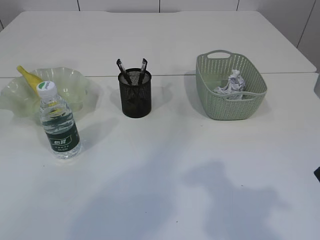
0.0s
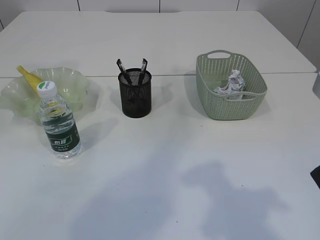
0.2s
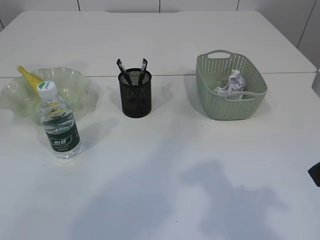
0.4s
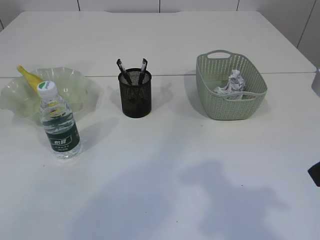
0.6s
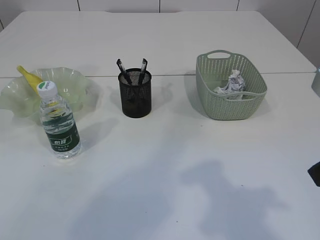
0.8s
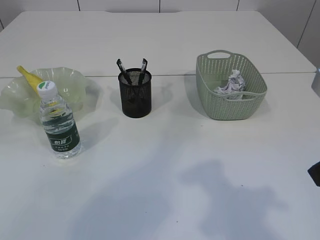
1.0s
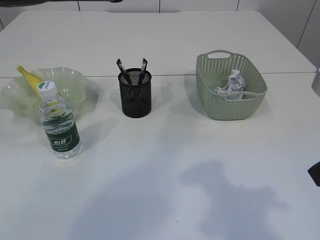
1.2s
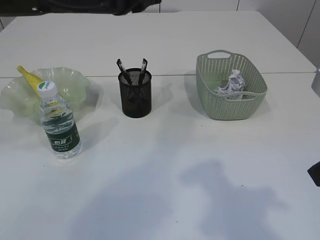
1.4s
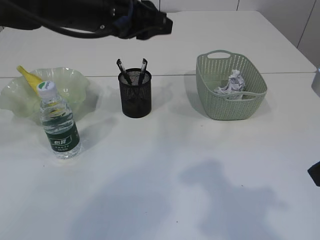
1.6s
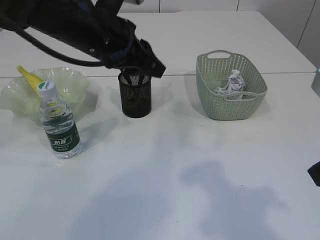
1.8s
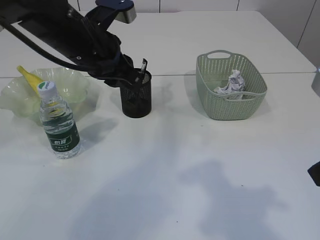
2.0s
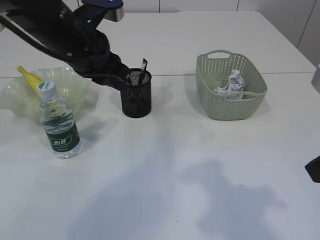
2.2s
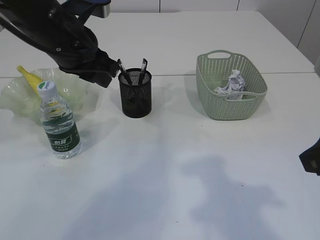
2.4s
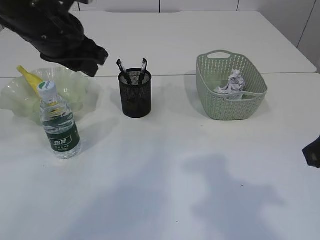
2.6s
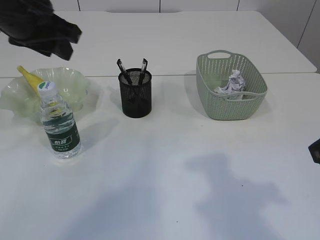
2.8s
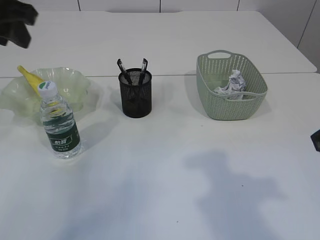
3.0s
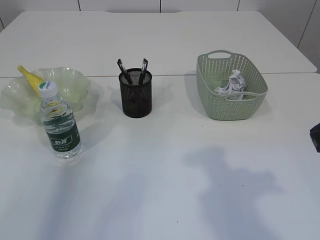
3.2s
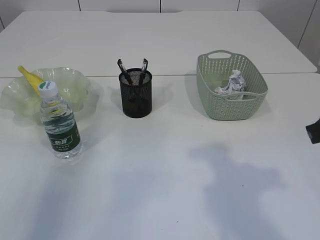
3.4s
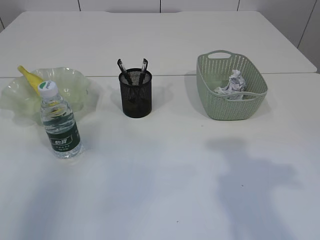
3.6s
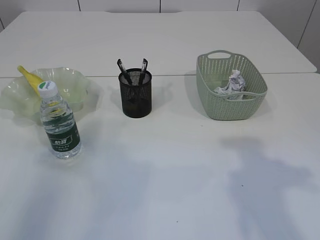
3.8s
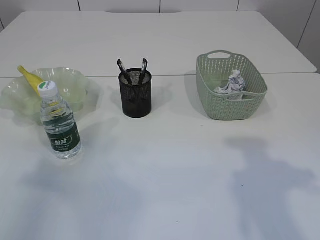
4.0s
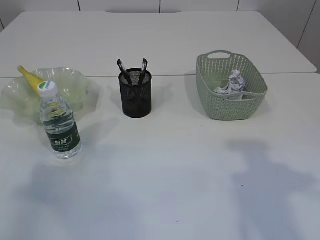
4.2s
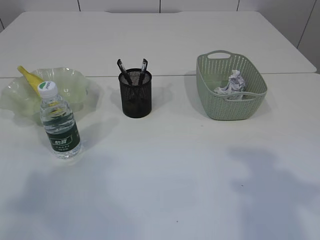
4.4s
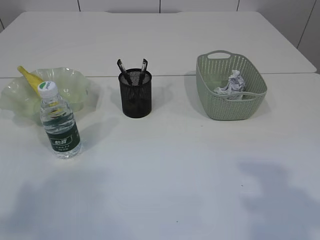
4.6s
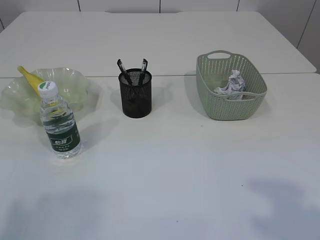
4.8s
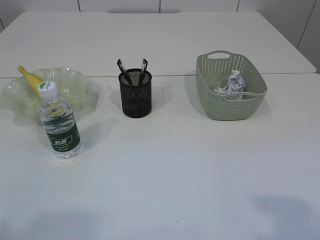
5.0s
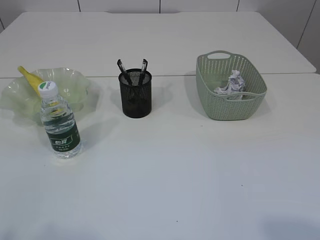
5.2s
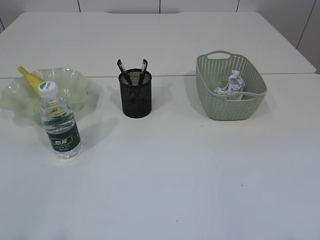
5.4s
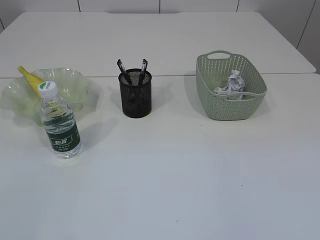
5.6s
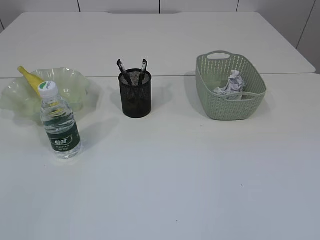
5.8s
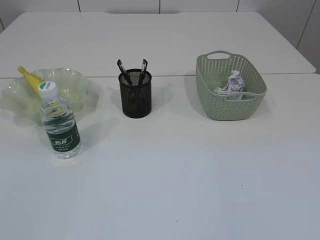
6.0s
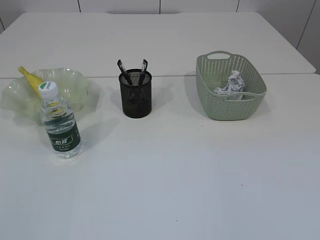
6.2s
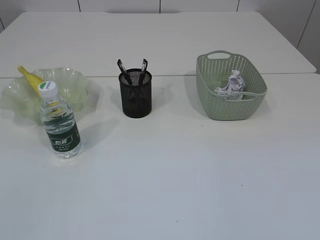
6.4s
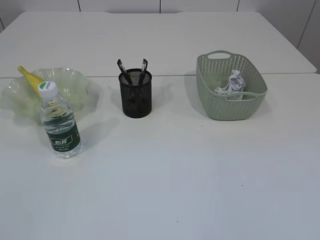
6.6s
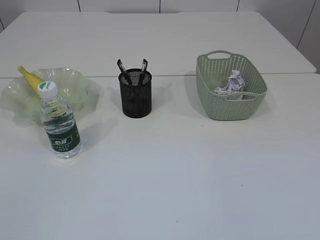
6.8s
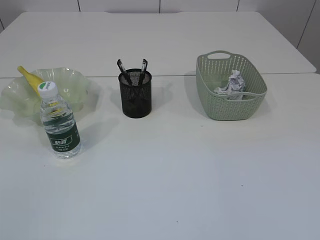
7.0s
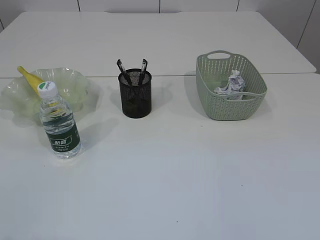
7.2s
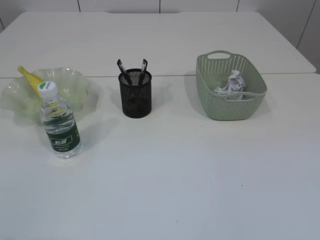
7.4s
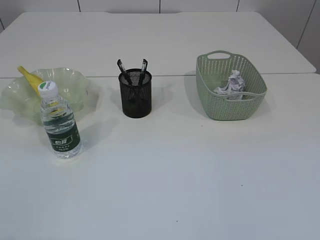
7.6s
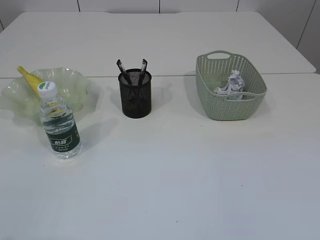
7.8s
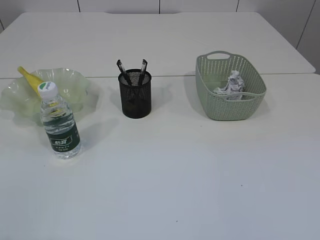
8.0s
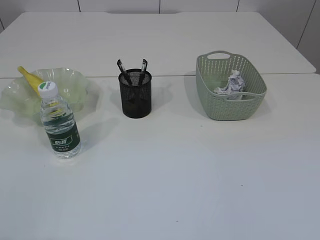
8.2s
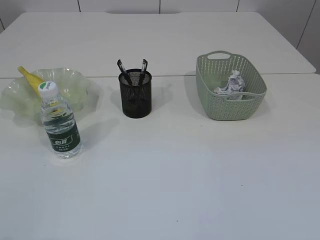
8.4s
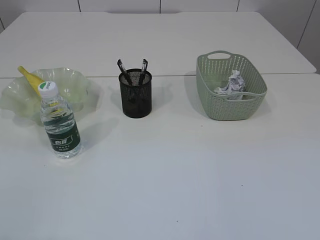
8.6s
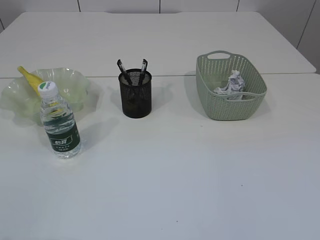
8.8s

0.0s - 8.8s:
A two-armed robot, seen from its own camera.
0.0s - 1.4s: The left gripper heads downward, covering about 5 cm.
1.4s - 3.0s: The left gripper goes about 15 cm to the left and backward.
3.0s - 4.4s: The left gripper shifts some 25 cm backward and to the left. The right gripper goes some 5 cm to the right.
4.4s - 5.8s: The left gripper travels backward by approximately 15 cm.

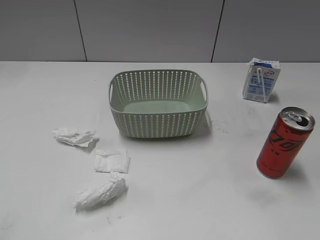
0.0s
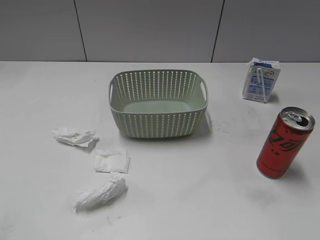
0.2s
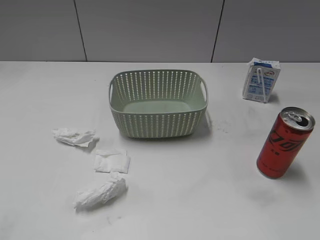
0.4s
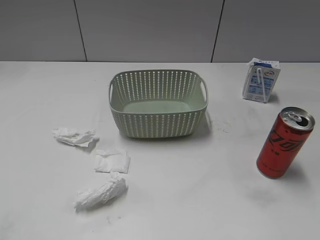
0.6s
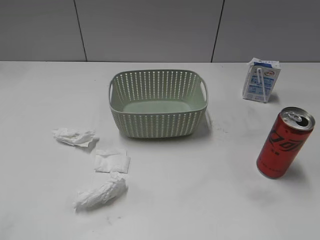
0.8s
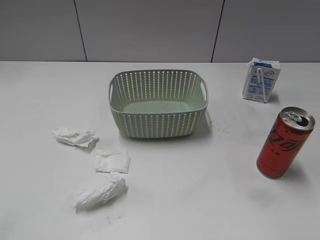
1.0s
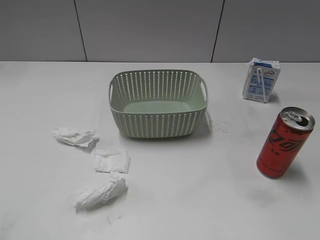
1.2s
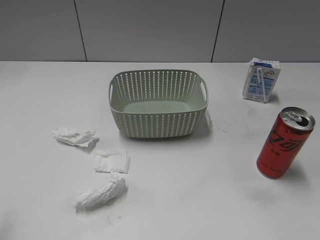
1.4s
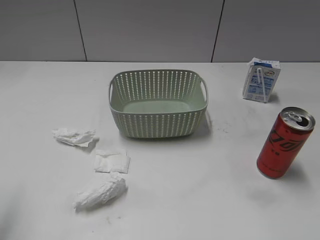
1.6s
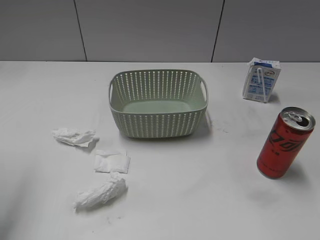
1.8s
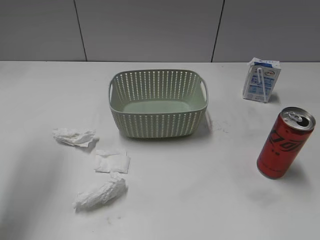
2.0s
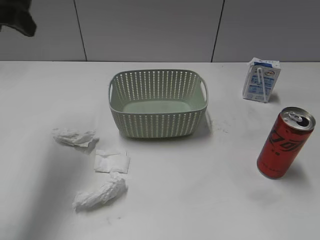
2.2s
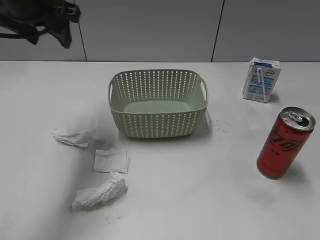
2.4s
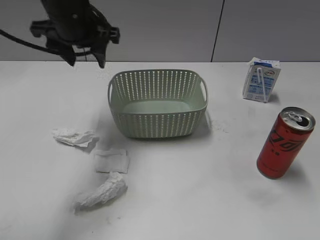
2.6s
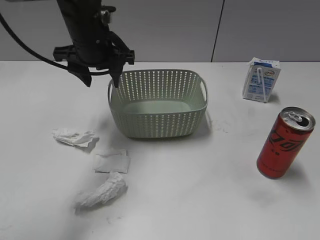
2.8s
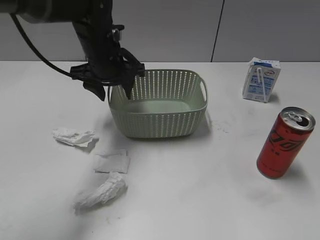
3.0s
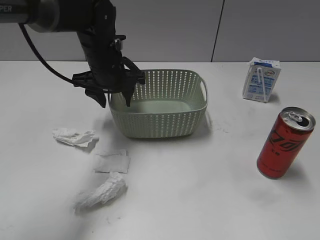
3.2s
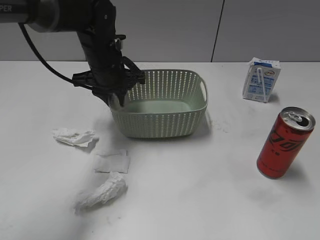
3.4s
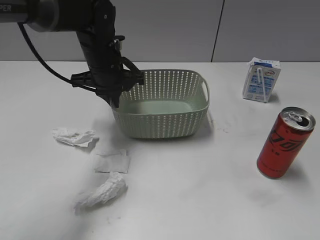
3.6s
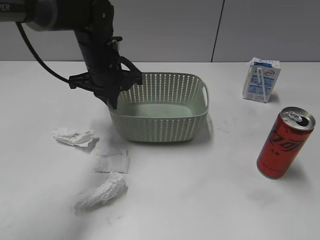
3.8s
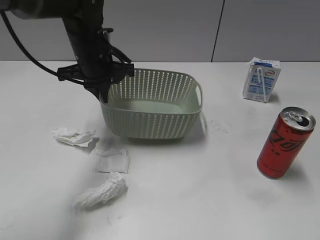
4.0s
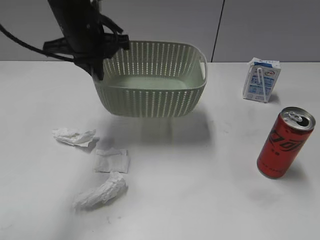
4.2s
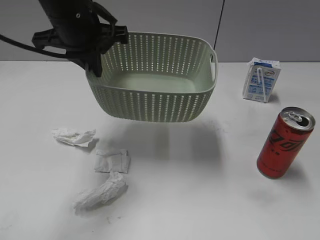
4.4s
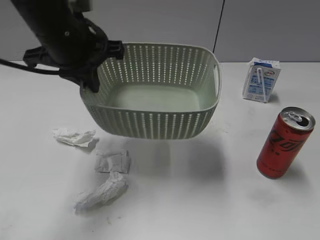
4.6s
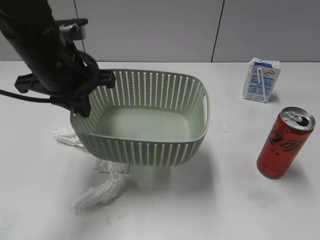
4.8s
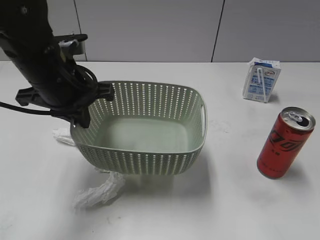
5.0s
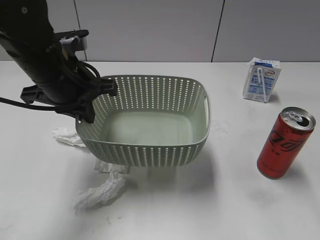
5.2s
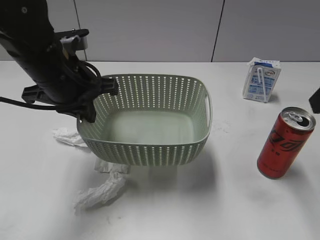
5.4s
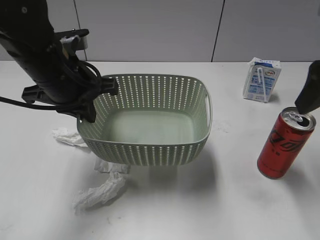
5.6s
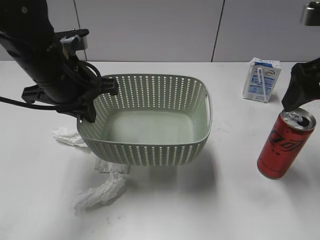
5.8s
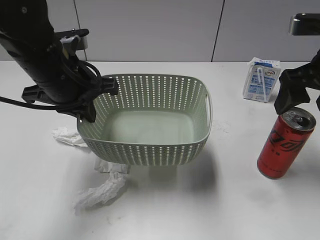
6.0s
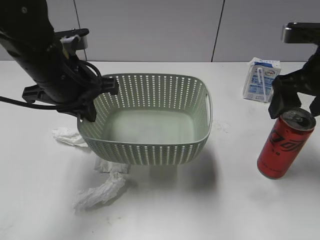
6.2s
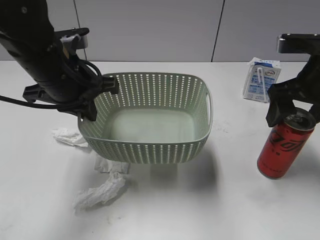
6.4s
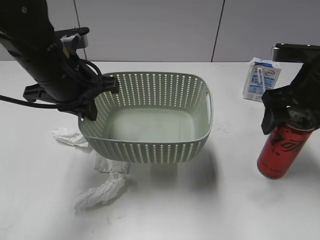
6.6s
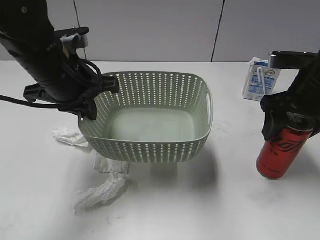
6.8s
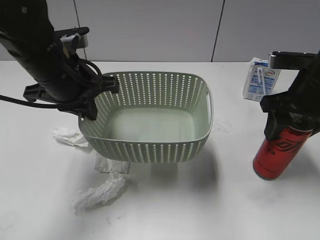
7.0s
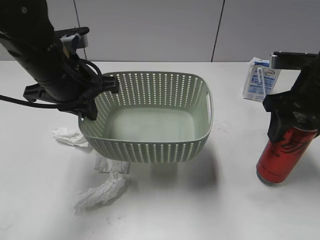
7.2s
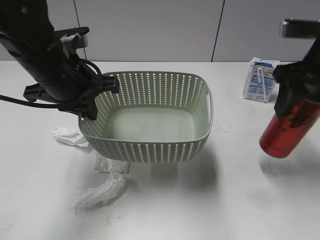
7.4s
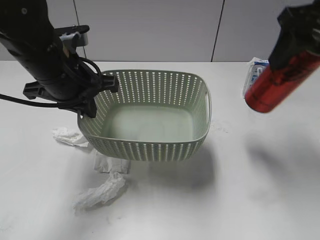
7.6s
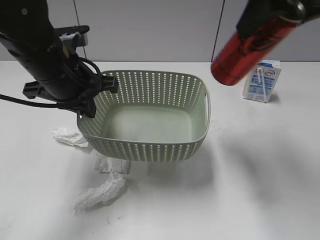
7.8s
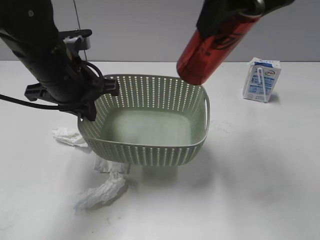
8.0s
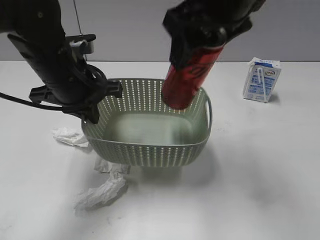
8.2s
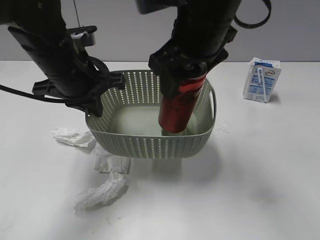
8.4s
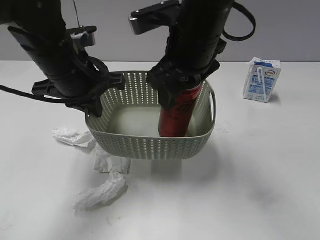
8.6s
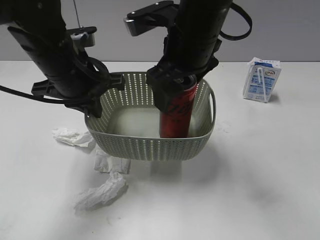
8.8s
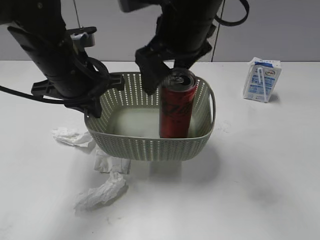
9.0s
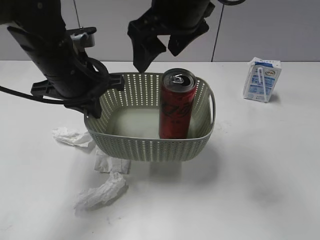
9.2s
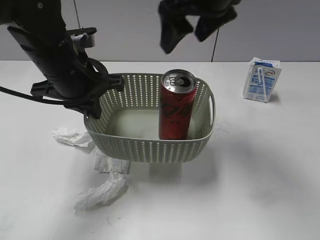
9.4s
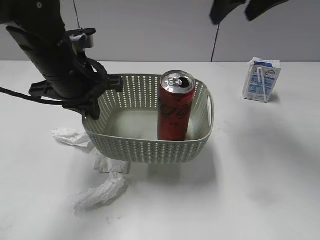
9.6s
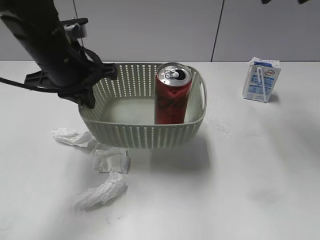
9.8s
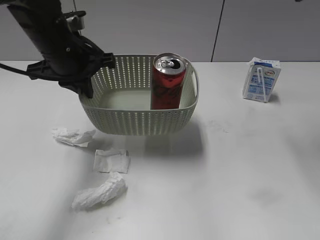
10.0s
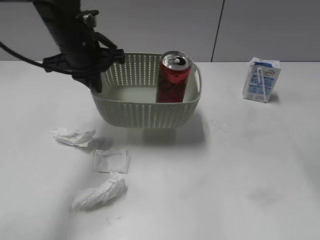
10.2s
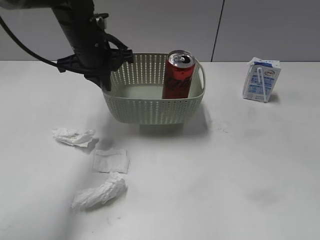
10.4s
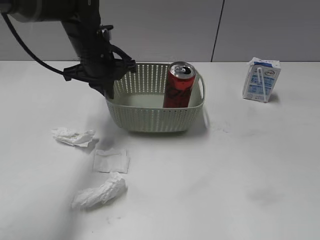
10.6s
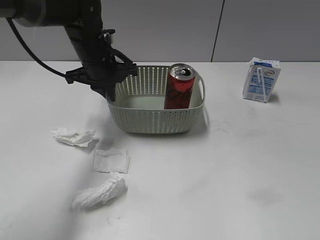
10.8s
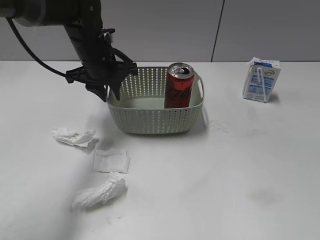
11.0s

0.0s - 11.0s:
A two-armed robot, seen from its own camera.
Step, 2.2s - 3.6s: Grasp the basket with left gripper.
Step, 3.8s - 5.2s: Lift the basket with left gripper.
Step, 5.4s - 7.0s: Grasp the cola can with right gripper.
Step, 7.2s - 8.8s: Place the cola can in the basket with right gripper.
Step, 9.0s - 11.0s: Place the basket on the table with left gripper.
1.6s - 3.2s: The left gripper moves forward, to the right and downward, roughly 40 cm.
3.2s - 4.8s: The left gripper goes some 15 cm backward and upward, and closes its fingers; the right gripper travels upward by about 5 cm.
4.8s - 6.2s: The right gripper is displaced forward by some 25 cm, and opens.
6.2s - 7.8s: The right gripper is displaced upward and to the left by about 15 cm, and closes up.
7.8s - 9.4s: The right gripper moves to the left and forward, approximately 10 cm, and opens up.
9.4s - 11.0s: The right gripper travels backward and to the right by some 40 cm, and closes; the left gripper travels forward by roughly 10 cm, and opens.

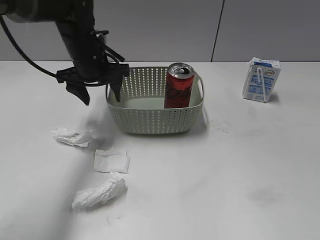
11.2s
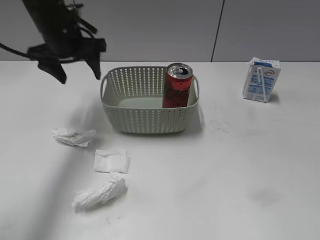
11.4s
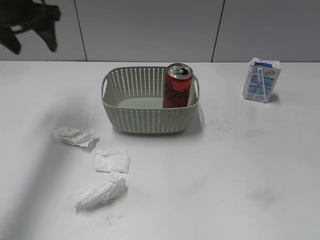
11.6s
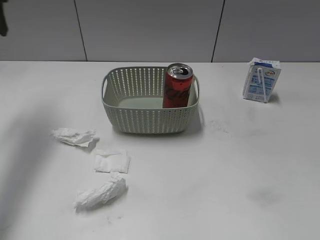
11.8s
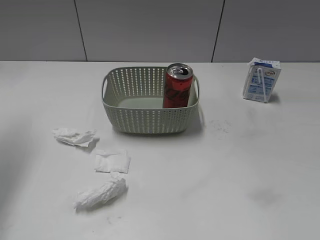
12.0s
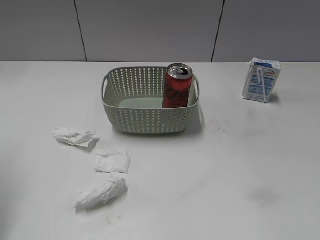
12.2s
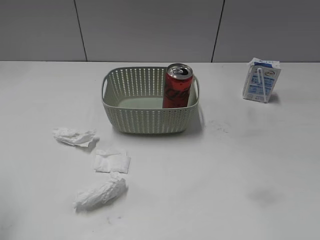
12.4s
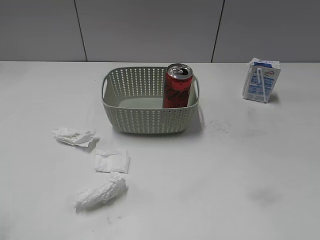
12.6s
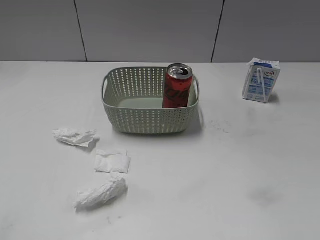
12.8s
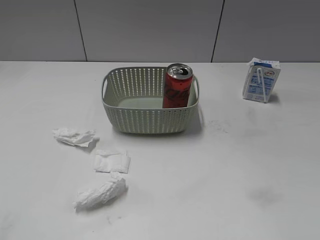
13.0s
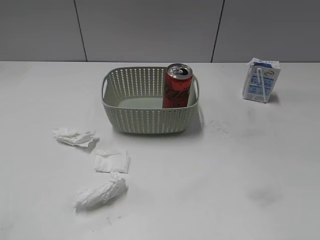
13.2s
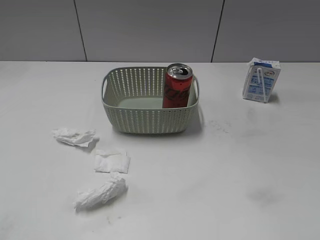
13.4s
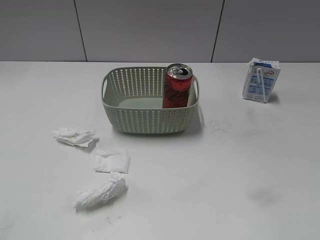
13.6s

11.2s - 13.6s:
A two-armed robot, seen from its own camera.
11.2s - 12.4s: The left gripper travels backward, to the left and upward by some 35 cm.
